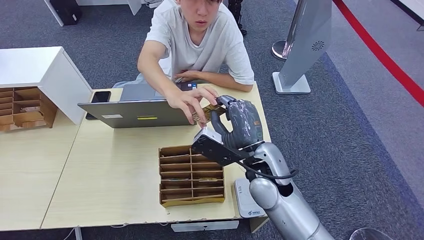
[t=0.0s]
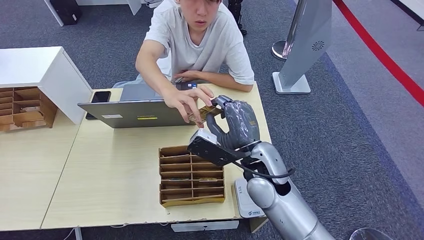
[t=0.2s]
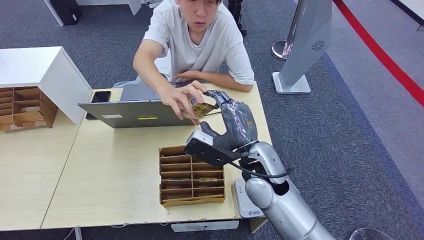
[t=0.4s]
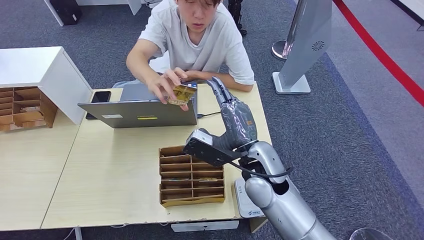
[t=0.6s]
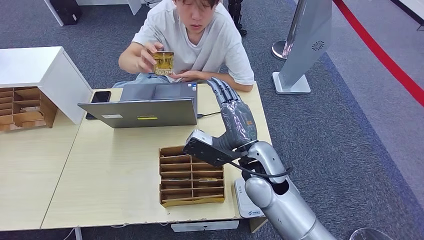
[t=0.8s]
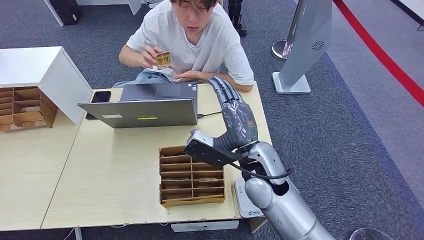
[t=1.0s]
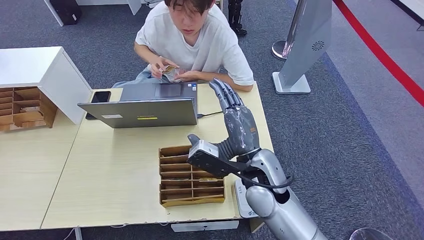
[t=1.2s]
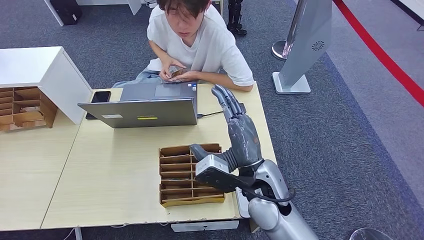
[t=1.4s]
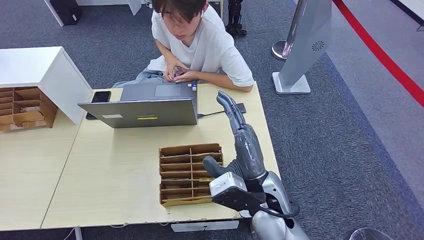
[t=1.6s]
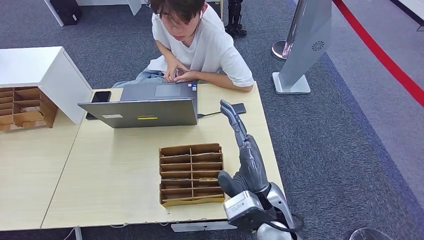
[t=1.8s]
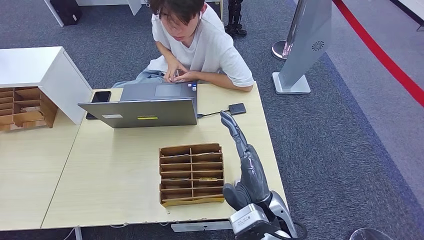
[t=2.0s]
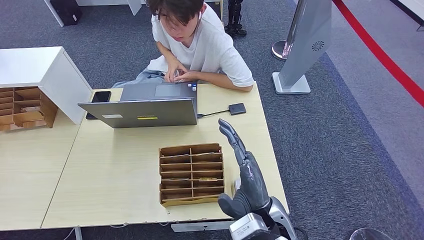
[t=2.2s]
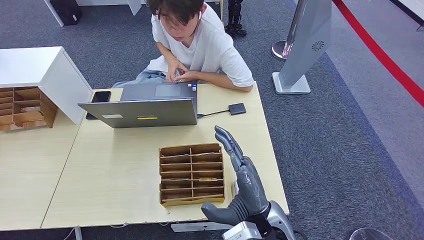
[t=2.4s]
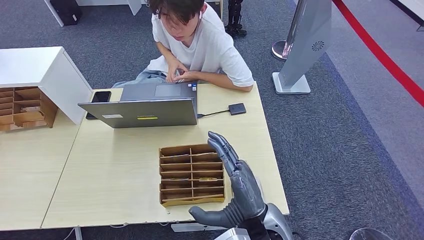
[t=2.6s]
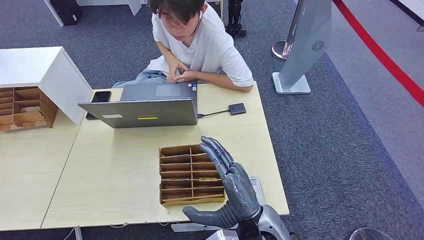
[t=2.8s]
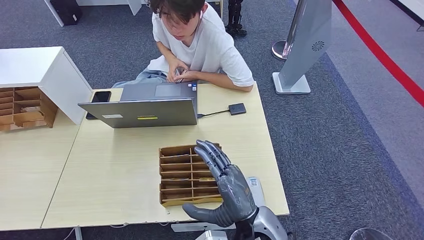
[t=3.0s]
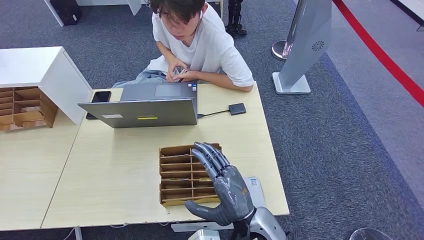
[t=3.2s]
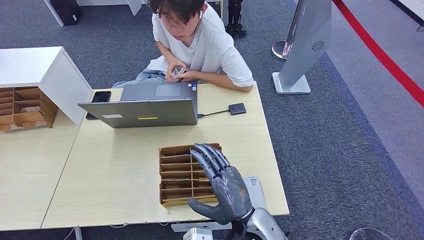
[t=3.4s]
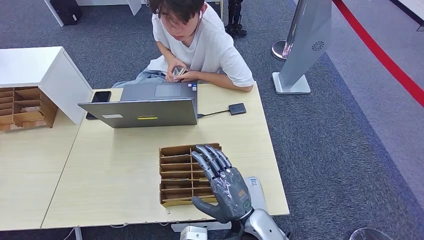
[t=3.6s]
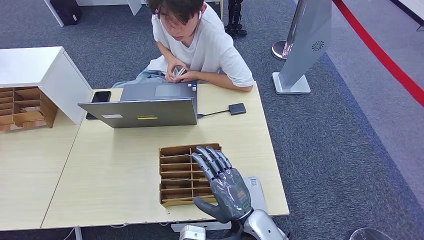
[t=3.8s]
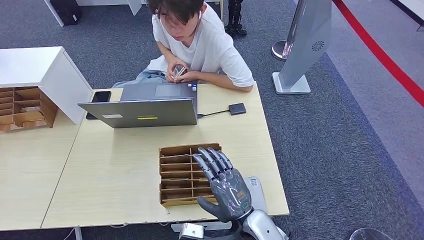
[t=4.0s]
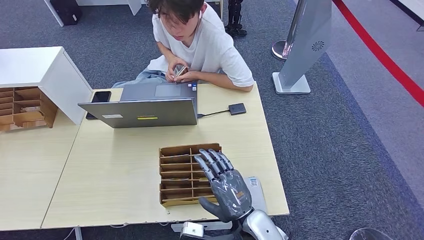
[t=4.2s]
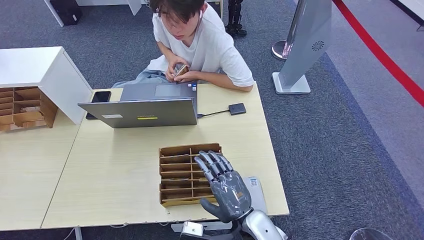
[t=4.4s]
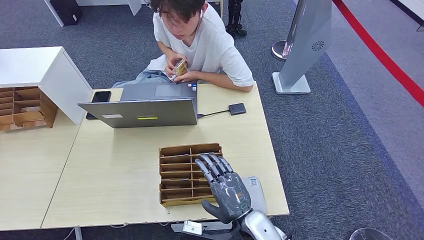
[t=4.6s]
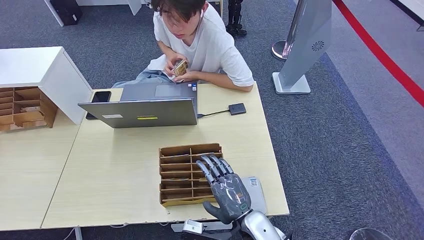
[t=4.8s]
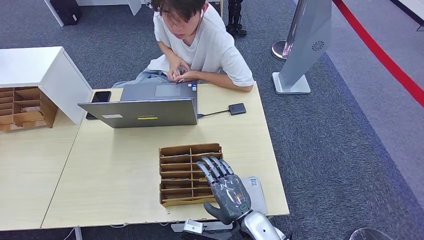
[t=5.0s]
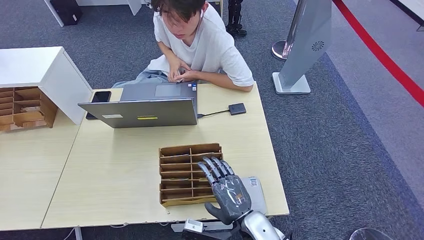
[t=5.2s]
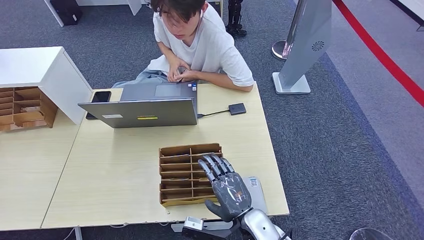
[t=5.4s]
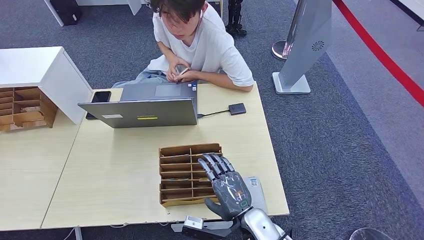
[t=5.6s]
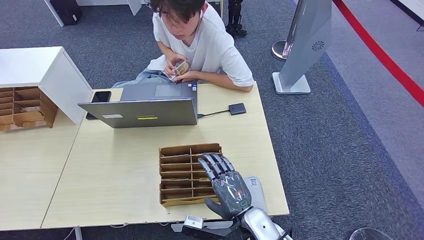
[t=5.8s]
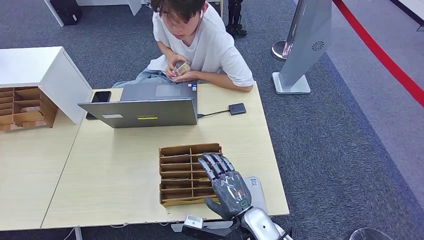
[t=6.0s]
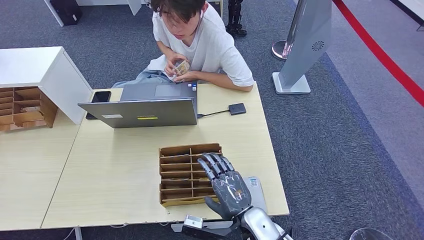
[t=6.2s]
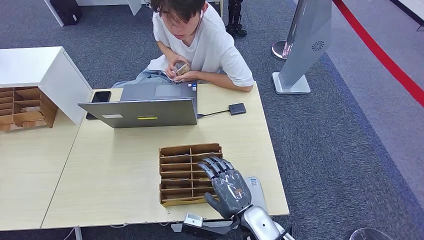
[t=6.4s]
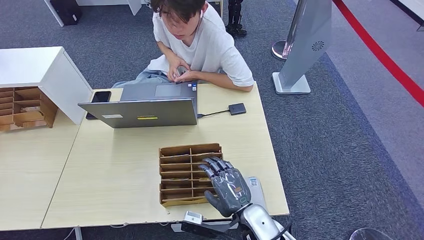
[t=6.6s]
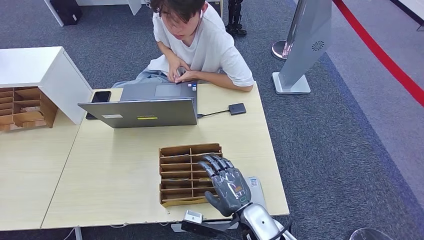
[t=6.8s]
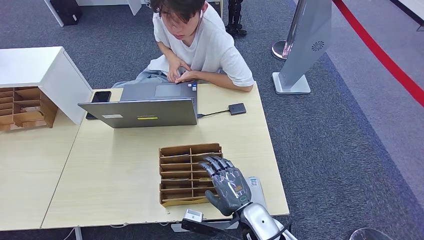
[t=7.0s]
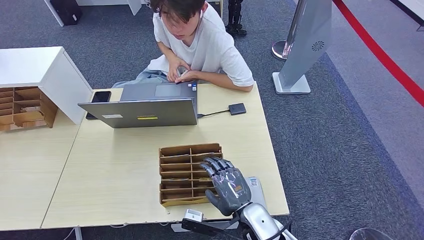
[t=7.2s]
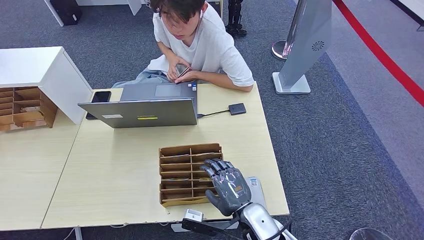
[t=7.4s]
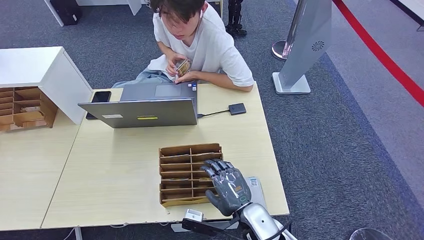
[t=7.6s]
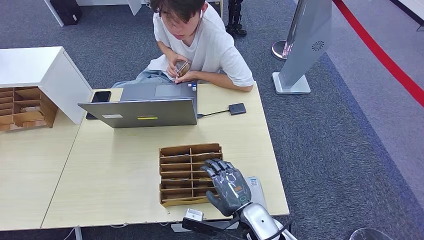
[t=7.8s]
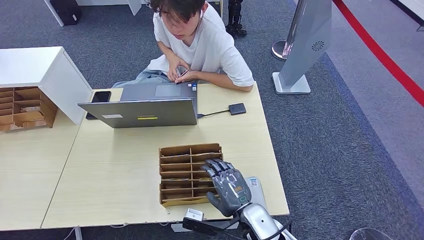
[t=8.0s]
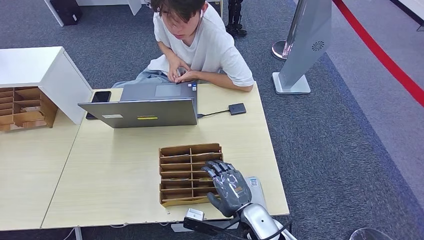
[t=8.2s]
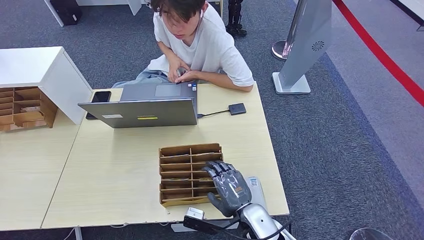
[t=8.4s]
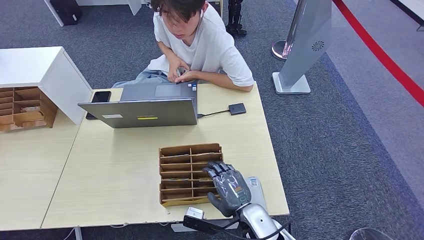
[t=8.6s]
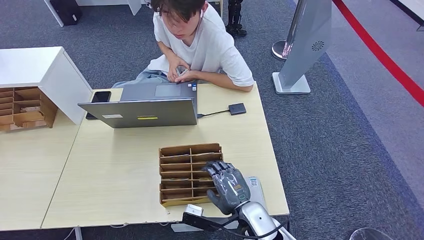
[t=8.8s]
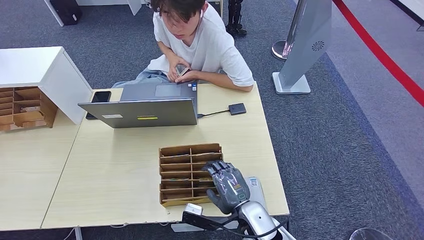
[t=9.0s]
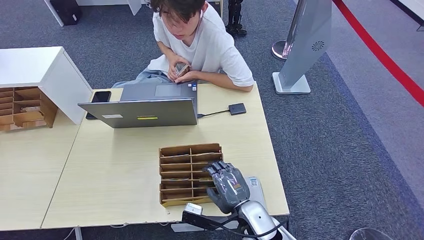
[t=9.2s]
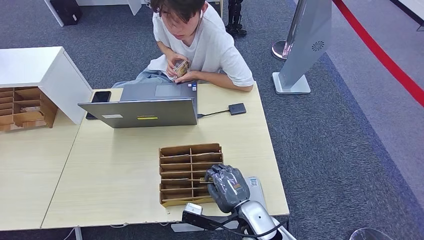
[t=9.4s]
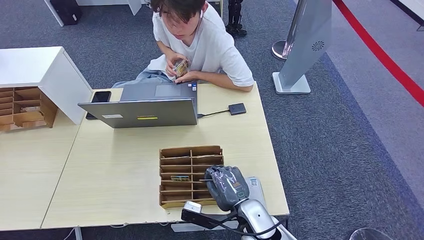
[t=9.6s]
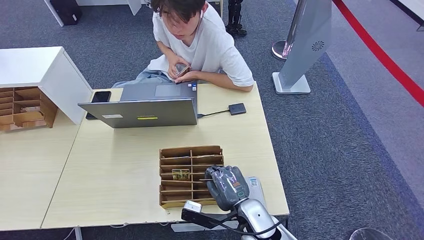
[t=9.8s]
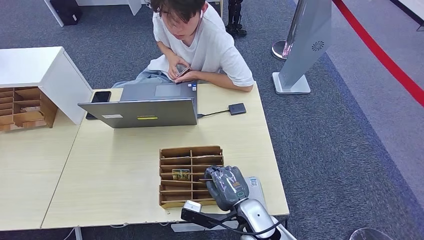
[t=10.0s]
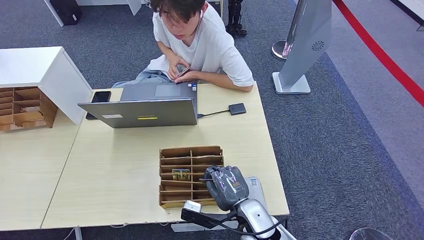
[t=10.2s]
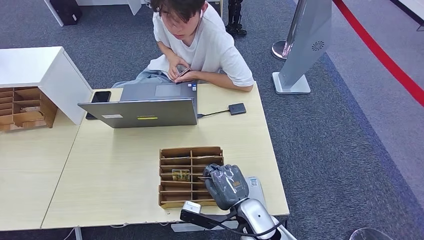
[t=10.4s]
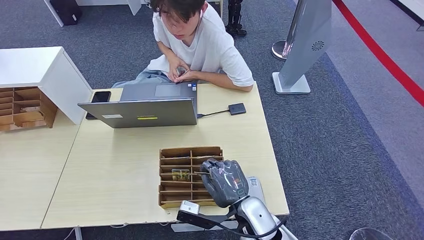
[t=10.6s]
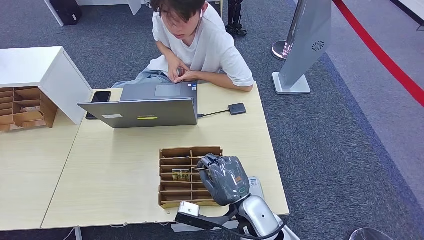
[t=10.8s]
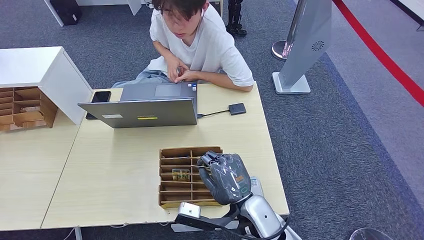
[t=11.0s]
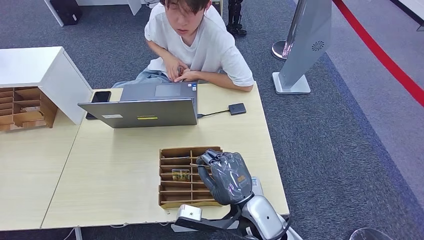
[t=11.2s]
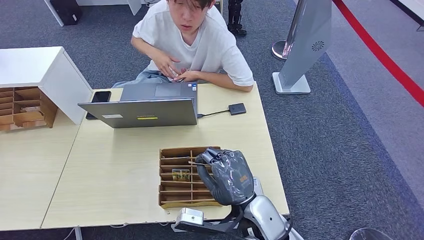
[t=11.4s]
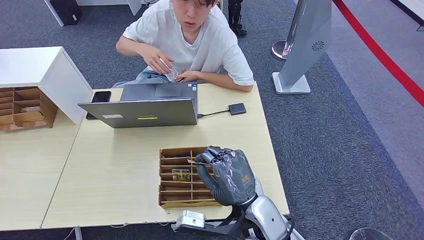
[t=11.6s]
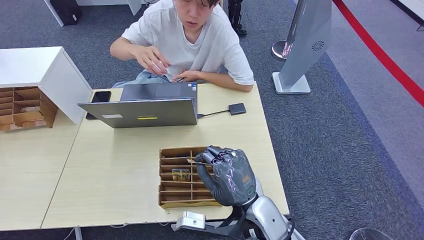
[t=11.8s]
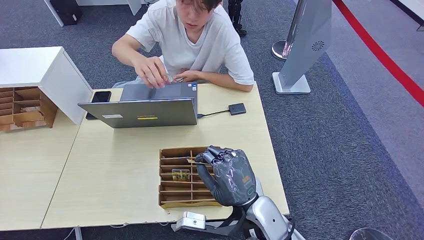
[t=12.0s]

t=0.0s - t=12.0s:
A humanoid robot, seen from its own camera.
Step, t=0.0s - t=10.8s: Pick up the room key from the key card box.
t=0.0s - t=1.6s: The right hand shifts about 5 cm backward.
t=1.6s - t=3.0s: The right hand is displaced backward and downward by some 10 cm.
t=4.4s - t=6.0s: There are only small adjustments of the hands.
t=6.0s - t=7.6s: Neither hand changes place.
t=7.6s - t=9.0s: The two hands keep their place.
t=9.0s - t=10.4s: The two hands keep their place.
t=10.4s - t=12.0s: The right hand is displaced upward by some 10 cm.

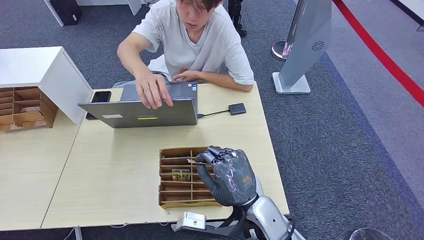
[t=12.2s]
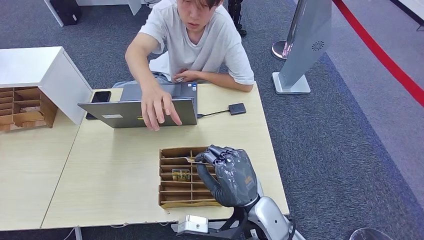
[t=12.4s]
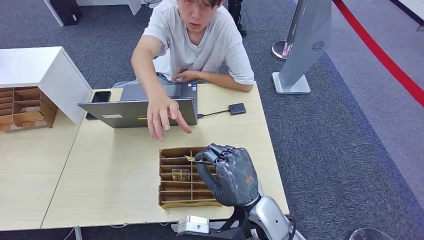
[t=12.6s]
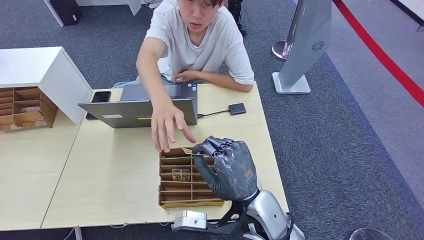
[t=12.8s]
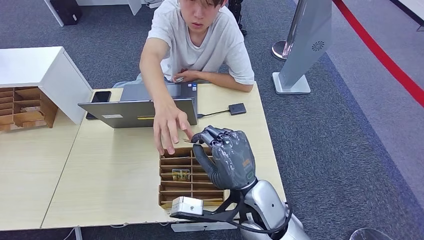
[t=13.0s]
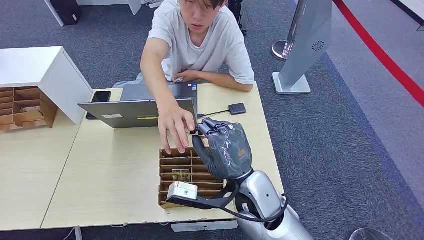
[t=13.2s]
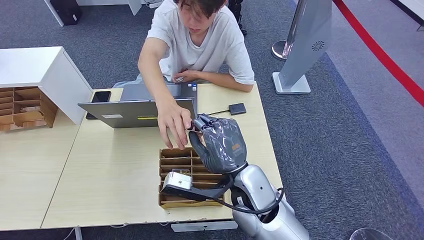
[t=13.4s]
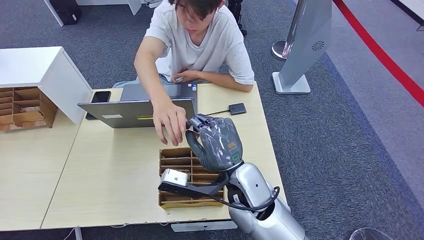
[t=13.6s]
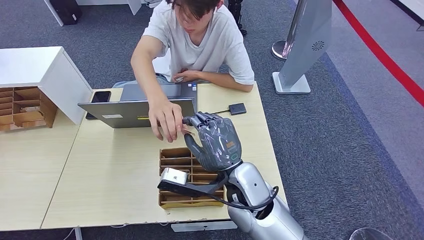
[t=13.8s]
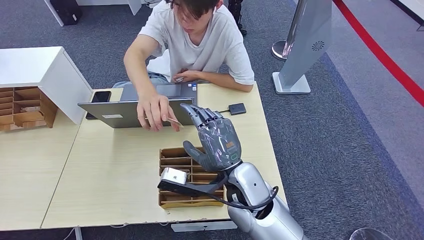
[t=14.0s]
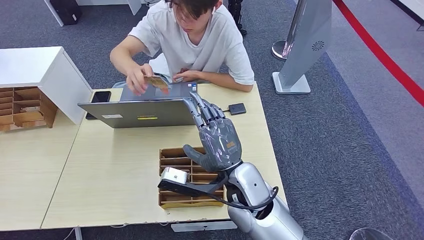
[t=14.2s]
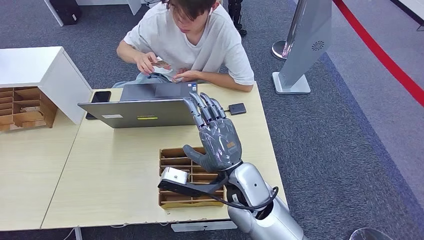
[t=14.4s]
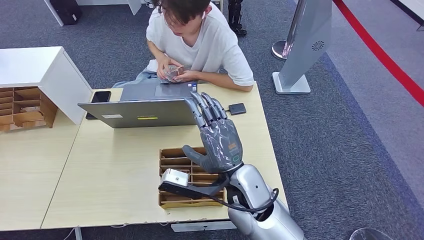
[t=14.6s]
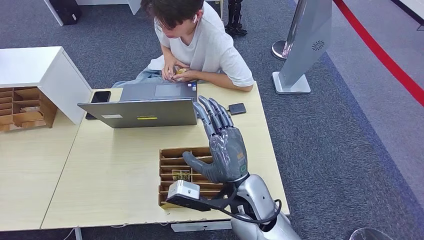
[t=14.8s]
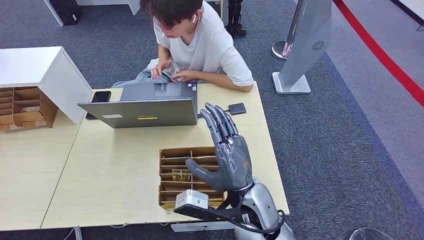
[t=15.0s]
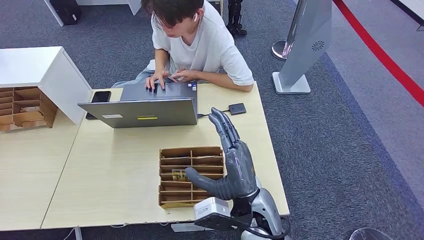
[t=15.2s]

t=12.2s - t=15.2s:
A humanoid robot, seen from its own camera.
Step, t=12.2s - t=15.2s: Hand the room key to the person.
t=12.2s - t=13.8s: The right hand heads forward, covering about 5 cm.
t=13.8s - t=15.2s: The right hand is displaced backward by roughly 5 cm.
